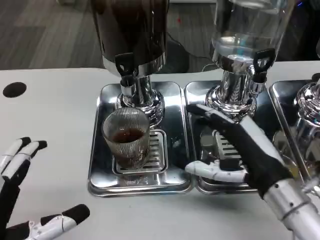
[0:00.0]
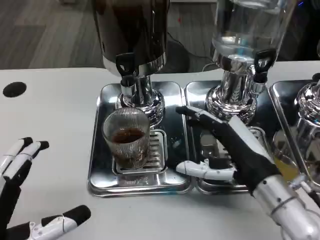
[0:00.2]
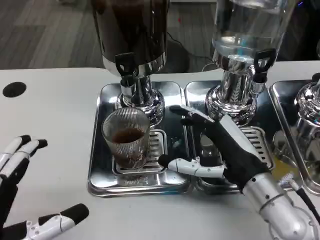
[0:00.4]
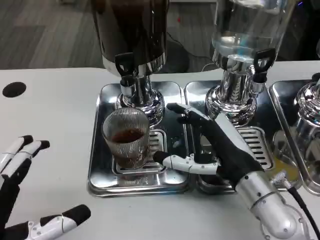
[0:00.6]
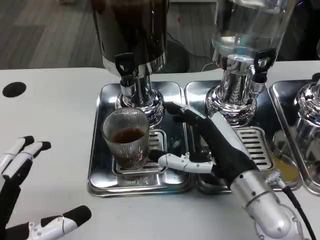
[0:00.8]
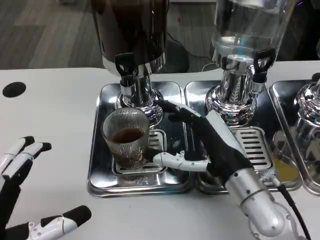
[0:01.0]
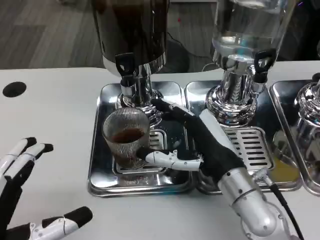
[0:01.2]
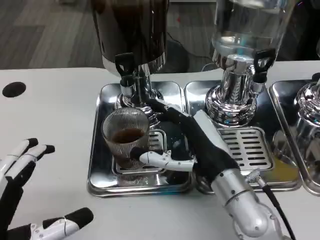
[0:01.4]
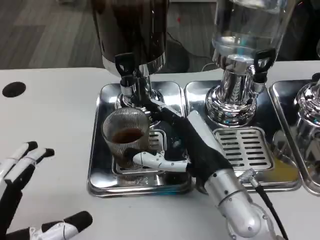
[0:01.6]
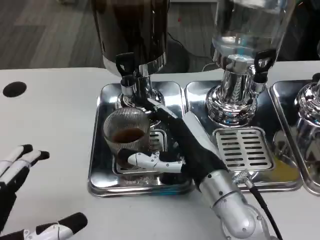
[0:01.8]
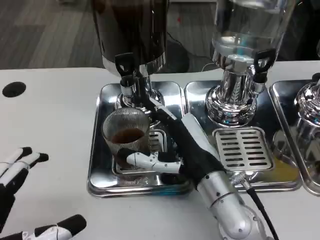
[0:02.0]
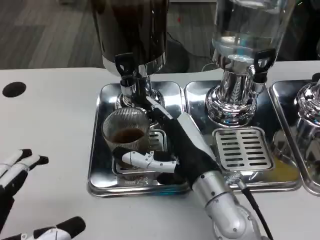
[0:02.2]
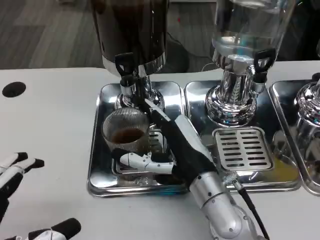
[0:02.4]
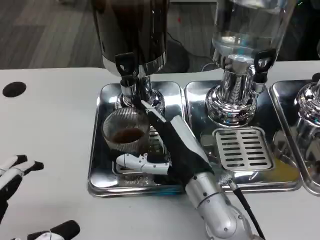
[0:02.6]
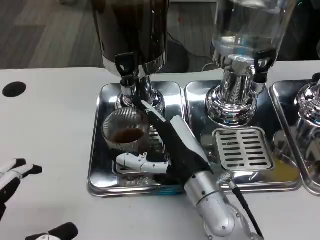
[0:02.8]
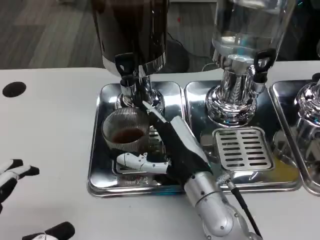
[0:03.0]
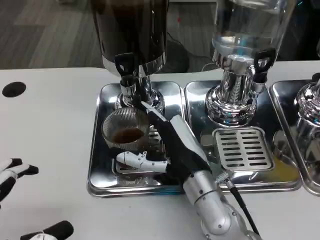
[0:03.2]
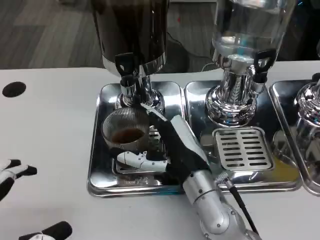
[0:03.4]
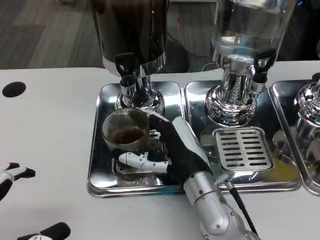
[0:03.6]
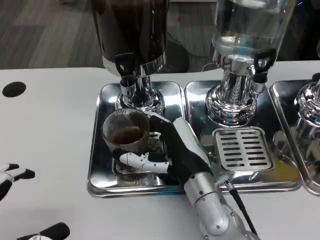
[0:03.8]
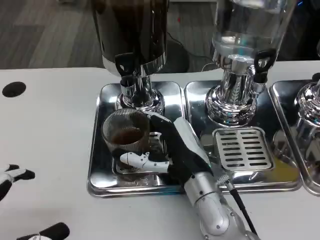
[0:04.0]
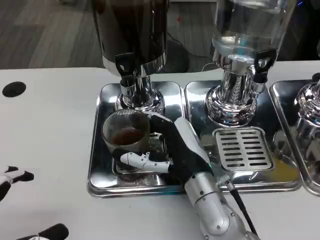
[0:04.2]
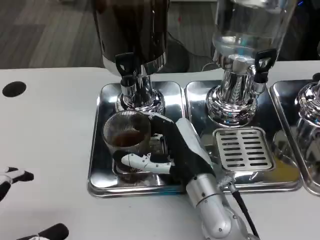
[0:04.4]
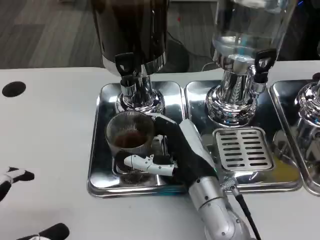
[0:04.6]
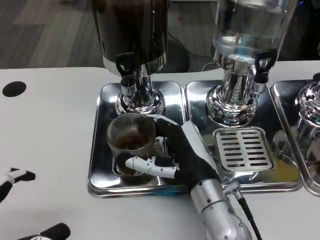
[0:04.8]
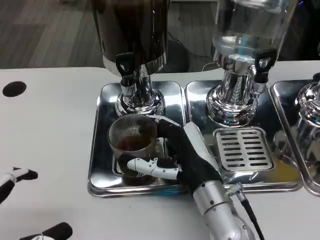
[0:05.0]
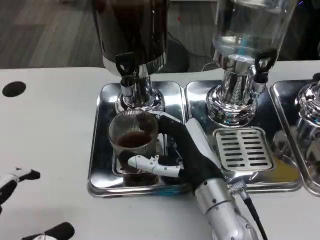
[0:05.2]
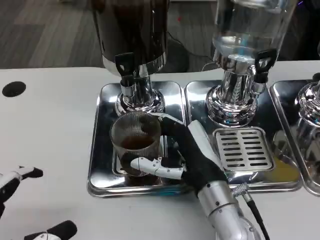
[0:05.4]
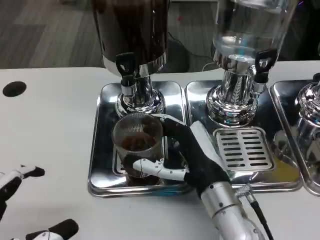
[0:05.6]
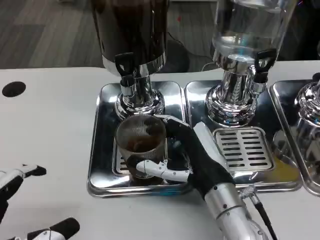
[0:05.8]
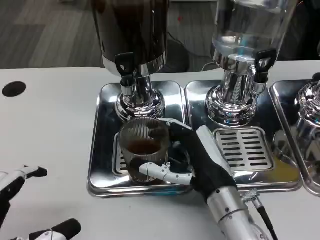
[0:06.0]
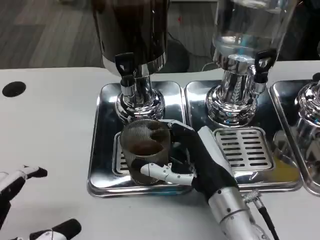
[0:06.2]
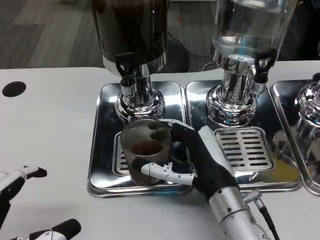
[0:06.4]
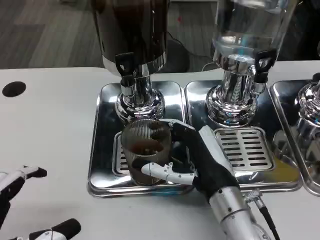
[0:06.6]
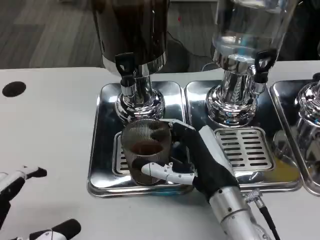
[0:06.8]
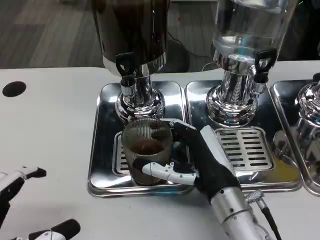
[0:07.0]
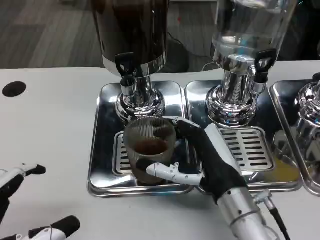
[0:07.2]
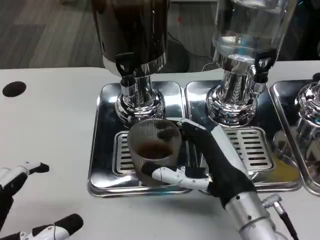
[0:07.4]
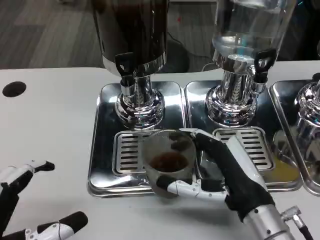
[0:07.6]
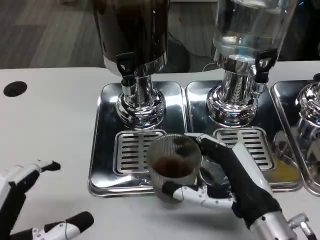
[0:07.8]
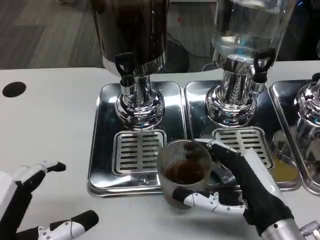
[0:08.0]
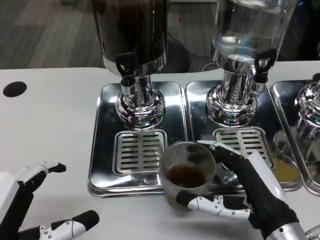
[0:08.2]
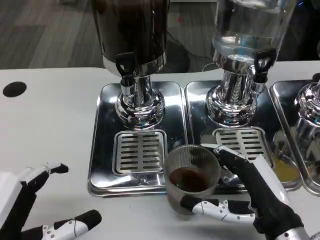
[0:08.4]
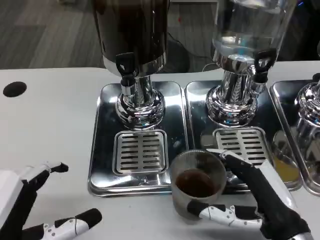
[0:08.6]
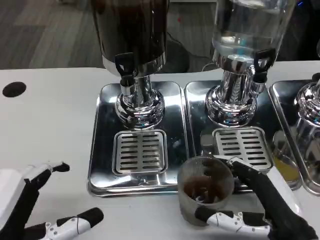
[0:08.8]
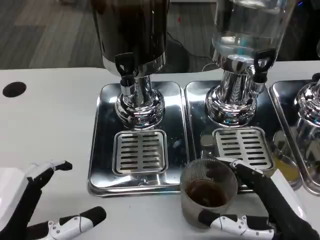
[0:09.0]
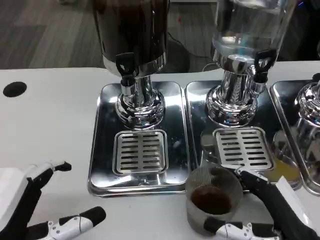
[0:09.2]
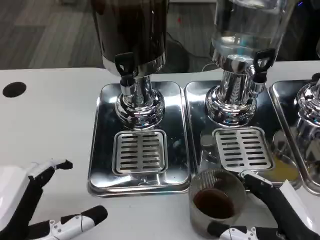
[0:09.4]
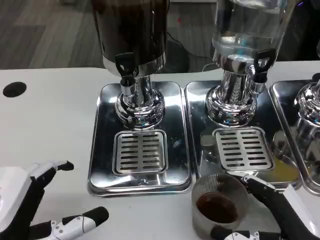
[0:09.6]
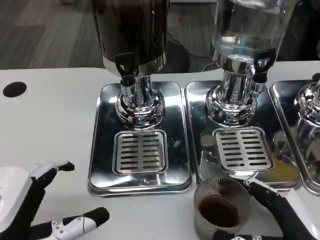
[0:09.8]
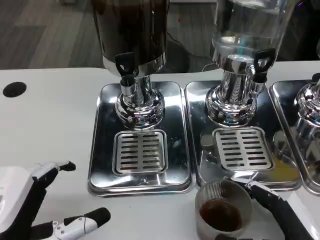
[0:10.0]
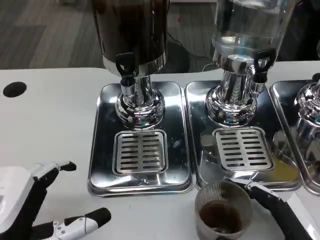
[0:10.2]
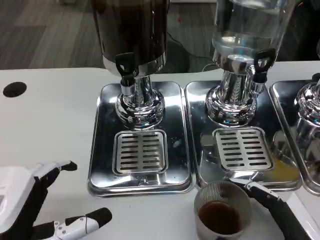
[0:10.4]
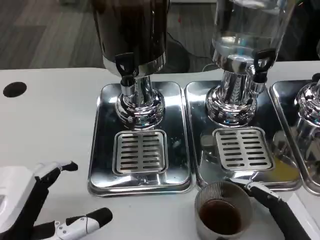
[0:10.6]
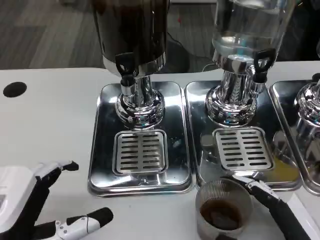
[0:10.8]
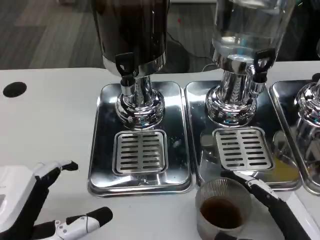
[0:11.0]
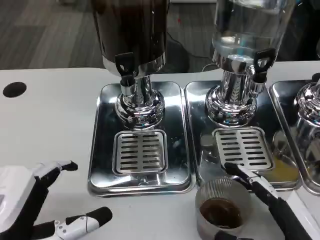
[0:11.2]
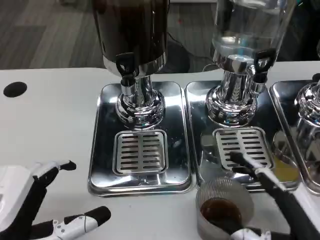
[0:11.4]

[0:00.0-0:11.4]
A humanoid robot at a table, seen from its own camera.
Task of the whole recording: Grasp the cup under the faucet to collect the drink, then remove the cup.
0.0 to 1.4 s: The right hand shifts approximately 5 cm to the left.
1.4 to 2.8 s: The hands make only small movements.
2.8 to 4.2 s: Neither hand changes place.
4.2 to 7.2 s: The hands stay close to where they were, moving slightly.
7.2 to 8.6 s: The right hand heads to the right and backward, covering roughly 10 cm.
8.6 to 10.0 s: The right hand changes place by approximately 5 cm.
10.0 to 11.4 s: There are only small adjustments of the hands.

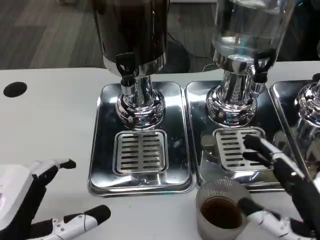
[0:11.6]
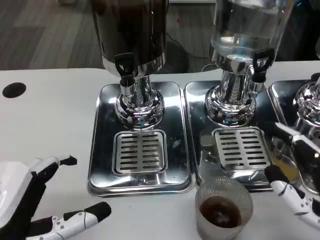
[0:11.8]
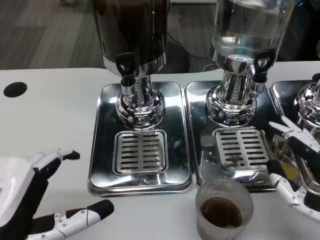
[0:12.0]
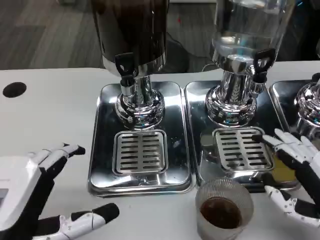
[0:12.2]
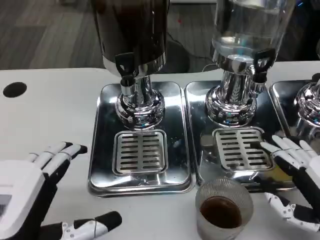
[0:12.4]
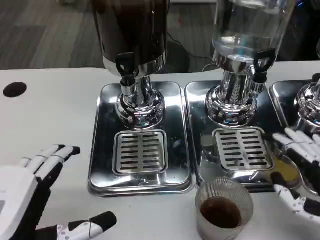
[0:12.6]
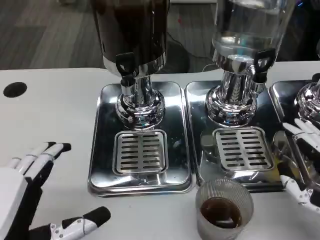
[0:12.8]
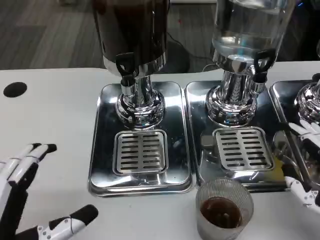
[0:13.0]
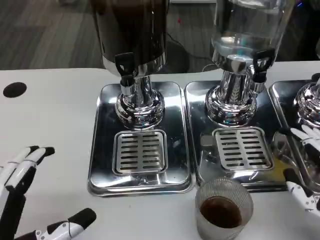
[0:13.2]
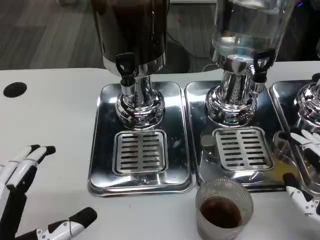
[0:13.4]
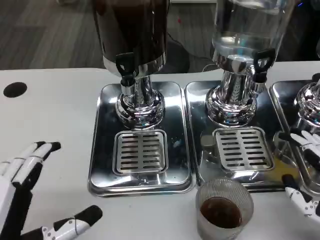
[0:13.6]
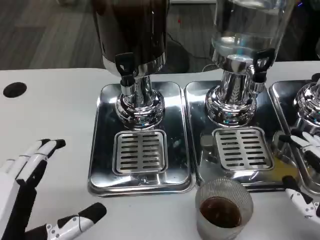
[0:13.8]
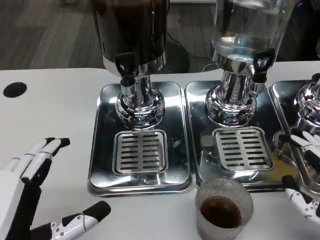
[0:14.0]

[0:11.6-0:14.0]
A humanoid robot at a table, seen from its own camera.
Task of the whole recording: Grasp the cup under the faucet to collect the drink, then remove the cup.
11.6 to 12.8 s: The right hand shifts by approximately 5 cm.
12.8 to 14.0 s: The hands make only small movements.

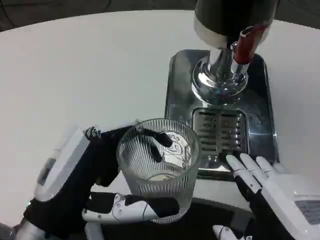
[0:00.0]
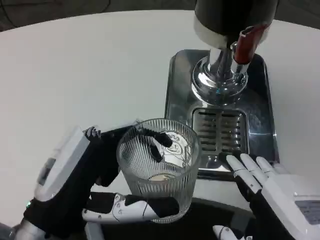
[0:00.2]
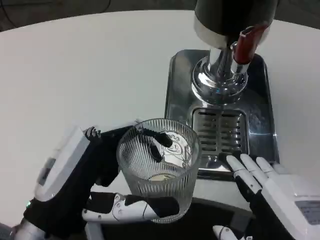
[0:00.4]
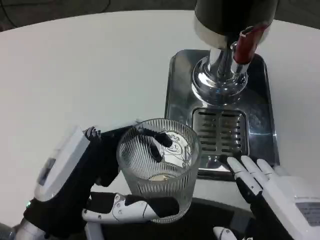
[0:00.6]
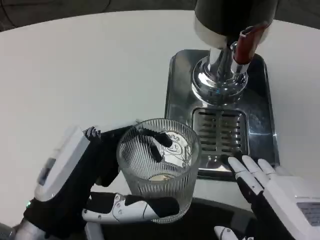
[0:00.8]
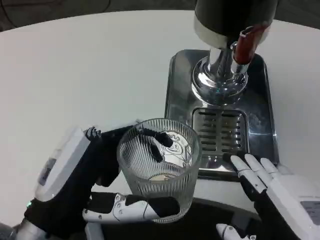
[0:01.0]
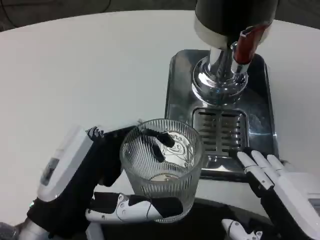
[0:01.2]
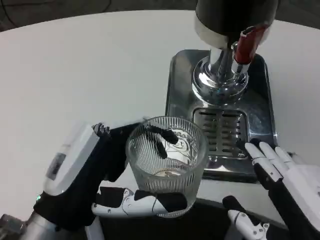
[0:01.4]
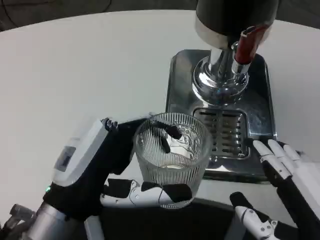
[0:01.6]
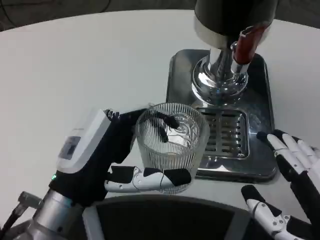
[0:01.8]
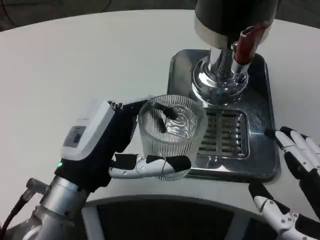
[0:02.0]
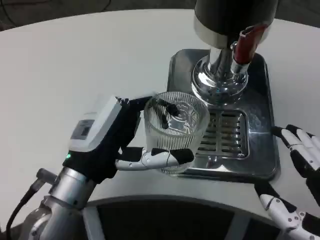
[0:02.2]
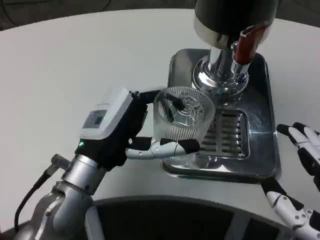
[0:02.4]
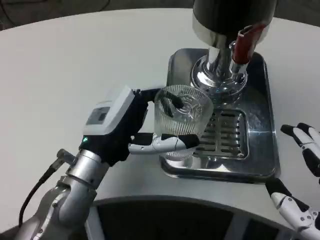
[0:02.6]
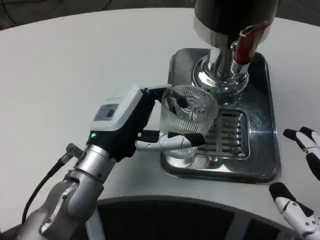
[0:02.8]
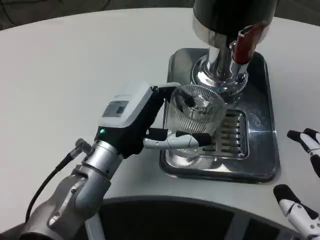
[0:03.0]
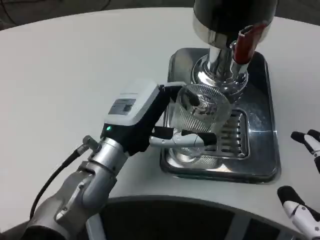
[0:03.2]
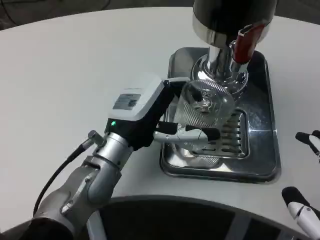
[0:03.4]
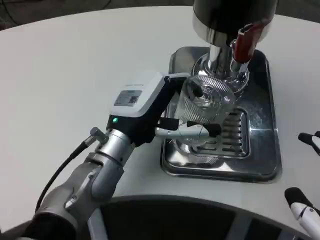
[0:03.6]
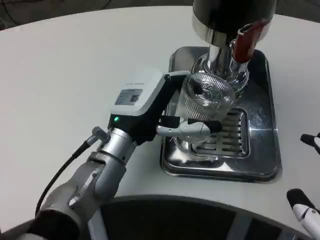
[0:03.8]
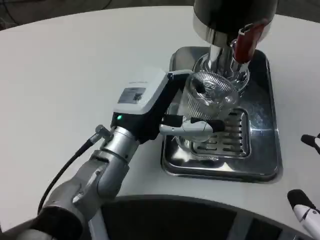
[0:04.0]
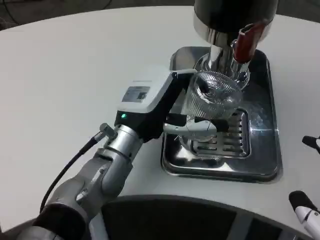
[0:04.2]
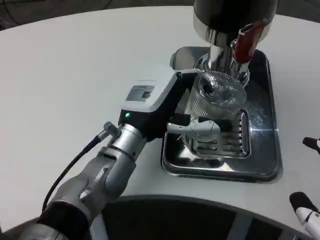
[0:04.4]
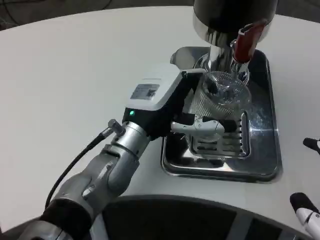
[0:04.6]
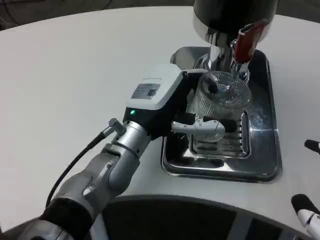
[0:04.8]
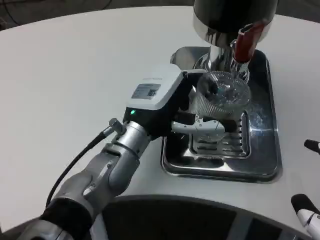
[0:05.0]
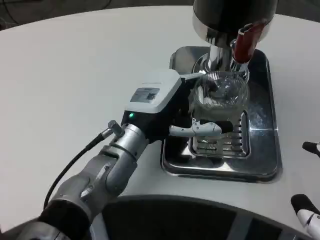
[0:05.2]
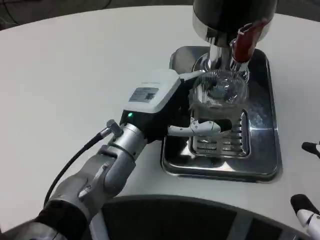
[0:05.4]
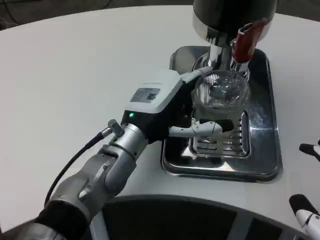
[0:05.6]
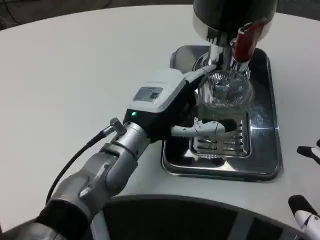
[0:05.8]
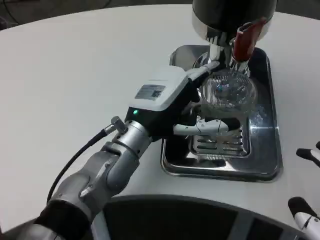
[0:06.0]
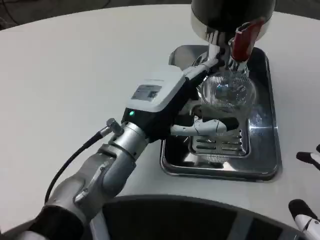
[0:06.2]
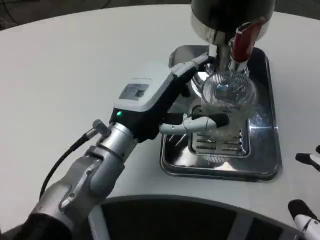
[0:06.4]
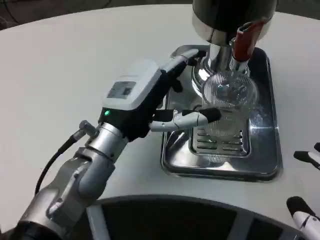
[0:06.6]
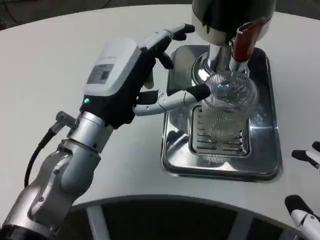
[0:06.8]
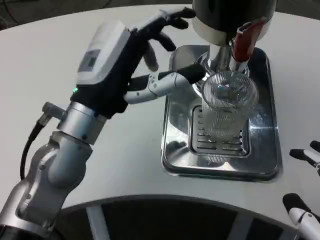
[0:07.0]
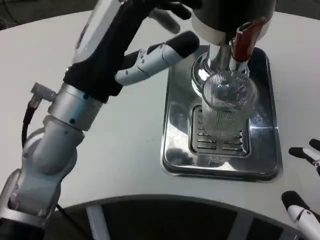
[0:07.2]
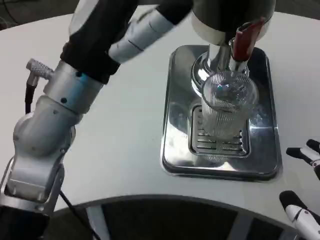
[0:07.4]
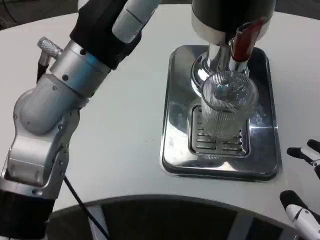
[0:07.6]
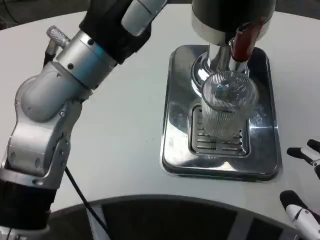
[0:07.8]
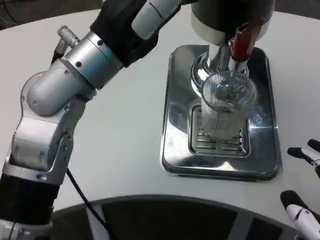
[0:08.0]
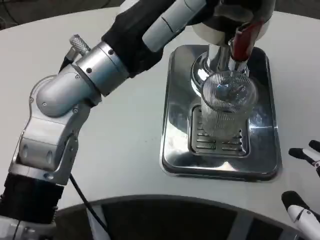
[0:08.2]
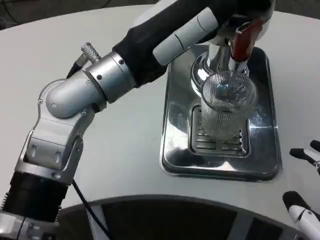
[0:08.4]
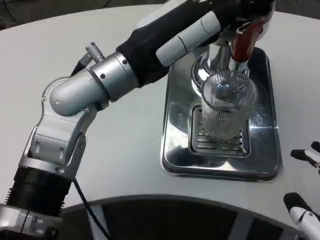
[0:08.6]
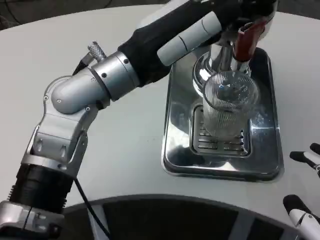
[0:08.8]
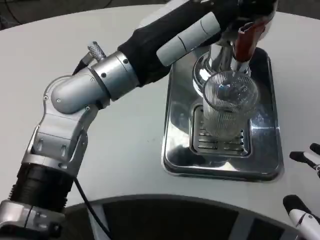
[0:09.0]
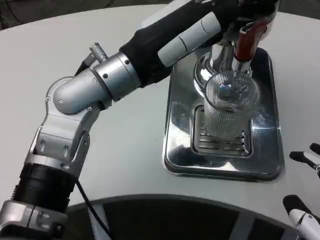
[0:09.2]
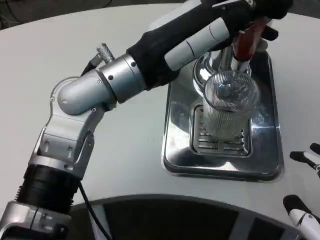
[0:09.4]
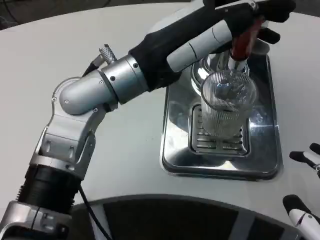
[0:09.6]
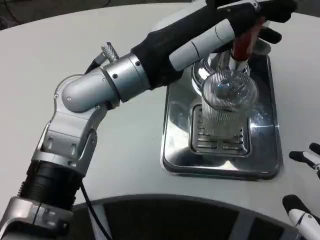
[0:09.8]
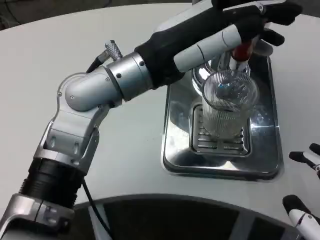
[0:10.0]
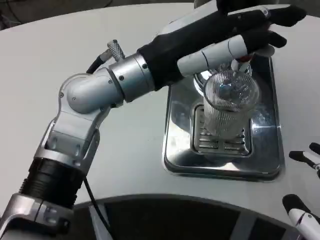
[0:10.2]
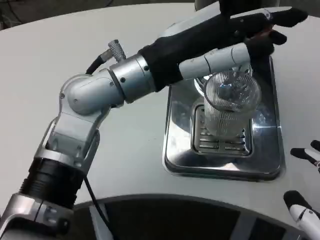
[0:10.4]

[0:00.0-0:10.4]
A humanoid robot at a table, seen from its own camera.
Task of the whole recording: Grasp the cup under the faucet to collect the drink, then remove the cup.
1.4 to 3.0 s: The left hand travels forward by some 10 cm.
4.4 to 6.0 s: There are only small adjustments of the hands.
6.0 to 7.4 s: The left hand is displaced upward and backward by about 10 cm.
7.4 to 9.0 s: The left hand shifts by about 5 cm.
